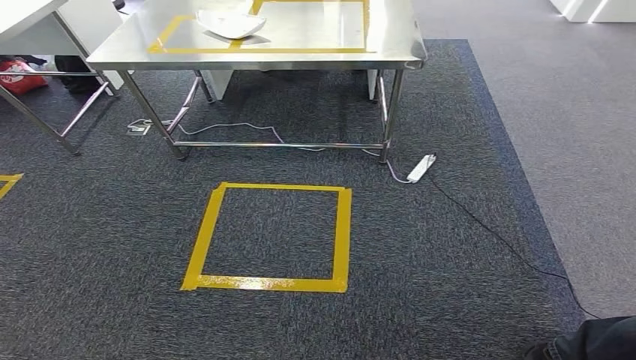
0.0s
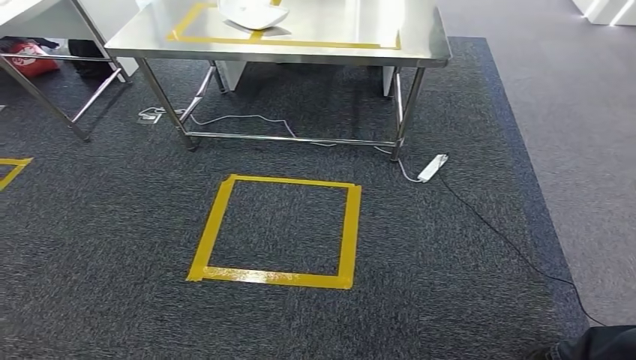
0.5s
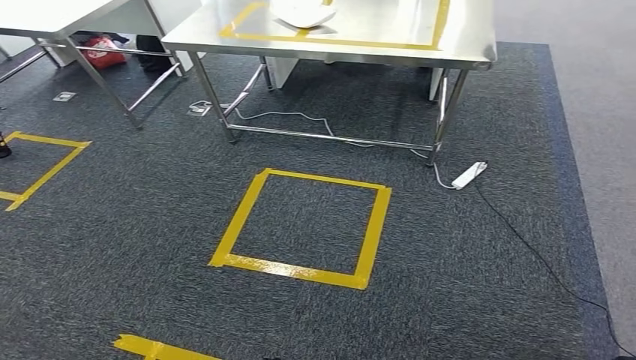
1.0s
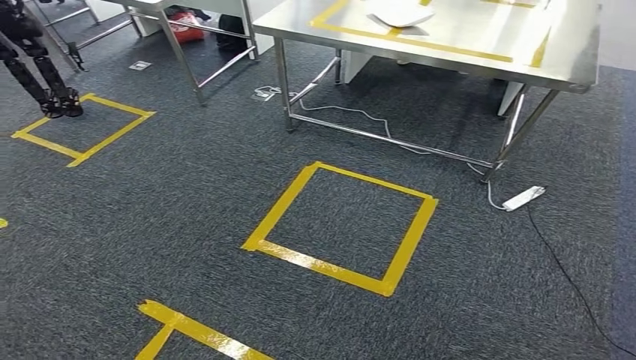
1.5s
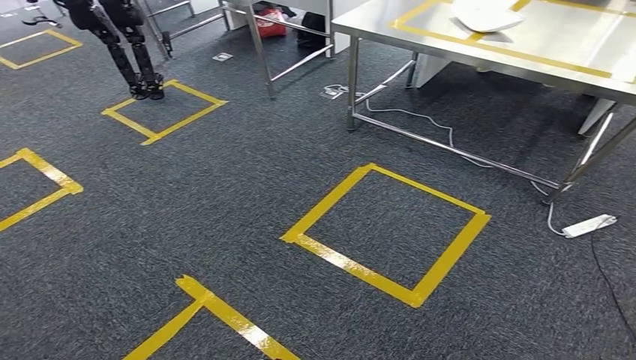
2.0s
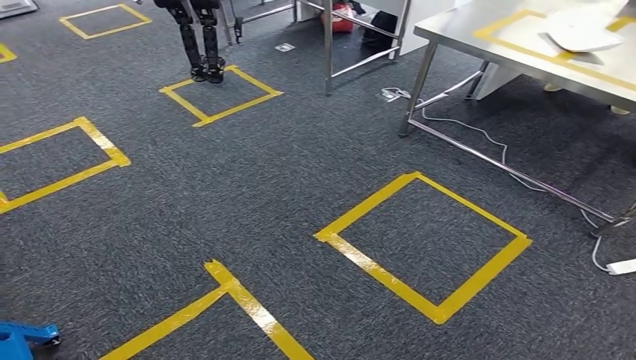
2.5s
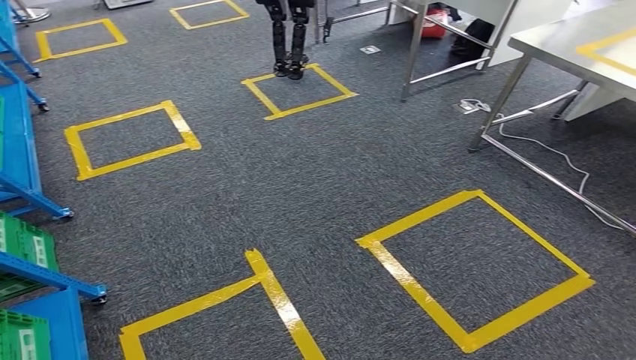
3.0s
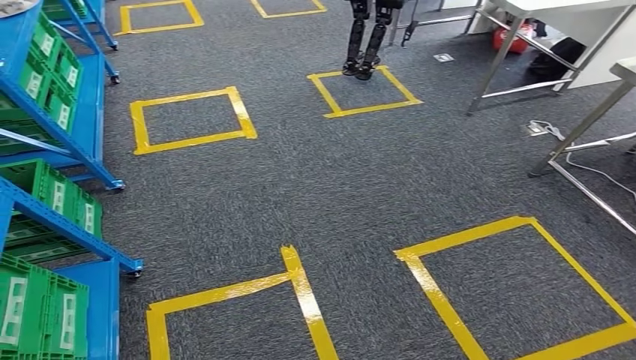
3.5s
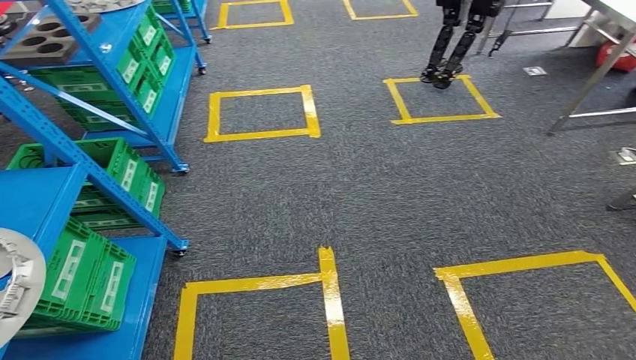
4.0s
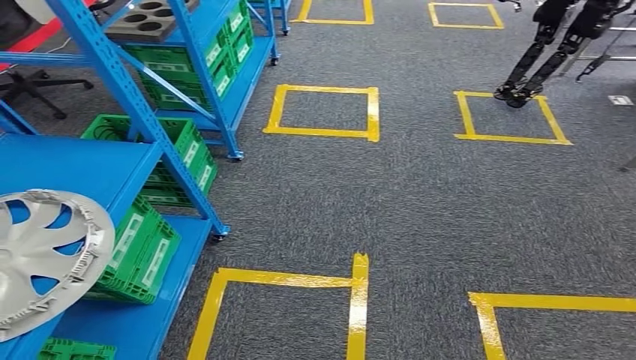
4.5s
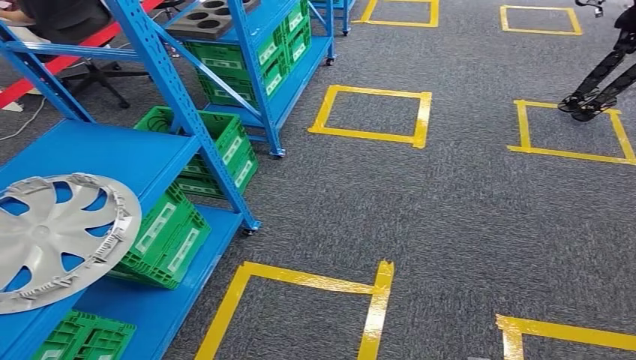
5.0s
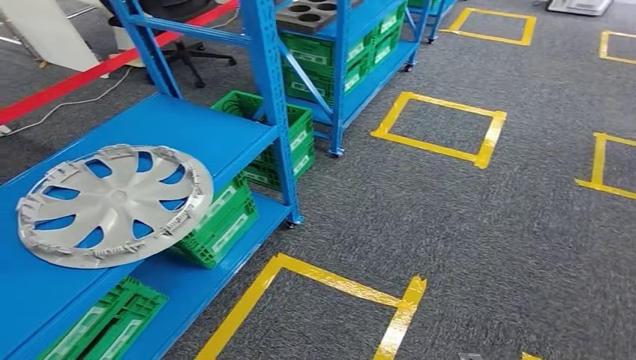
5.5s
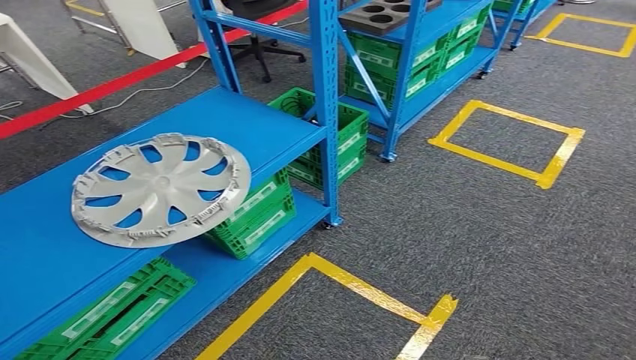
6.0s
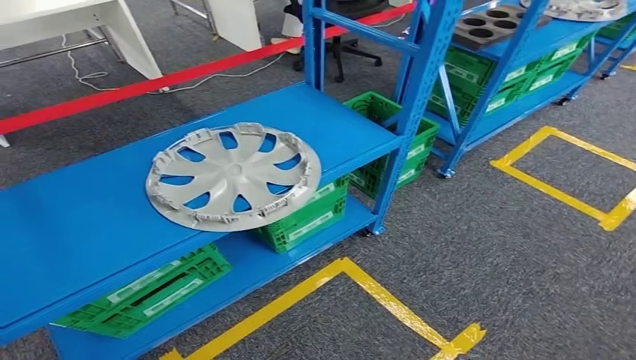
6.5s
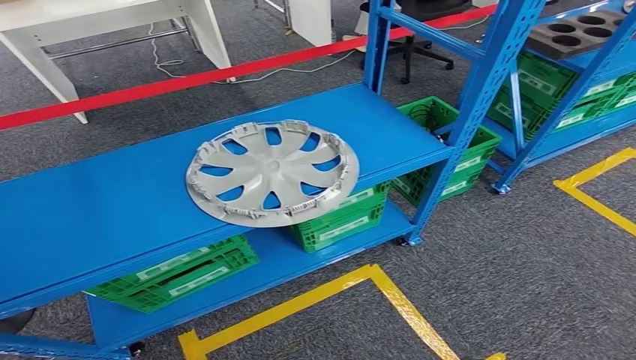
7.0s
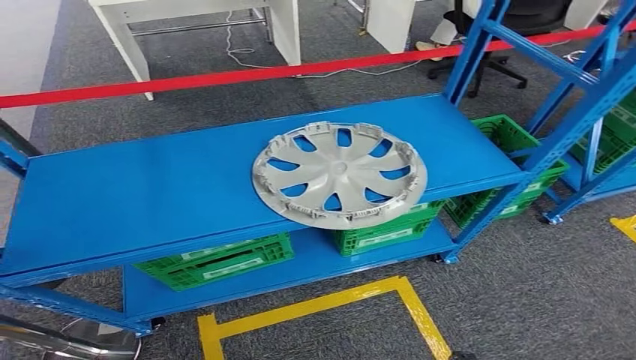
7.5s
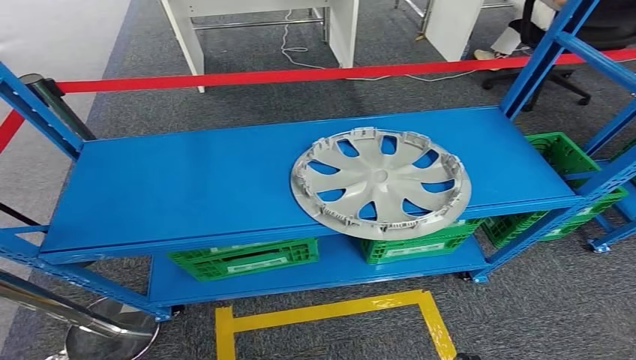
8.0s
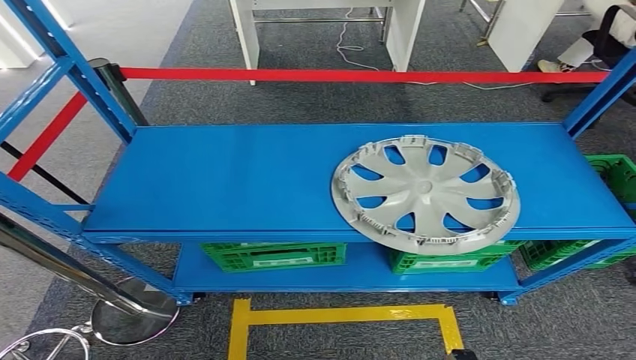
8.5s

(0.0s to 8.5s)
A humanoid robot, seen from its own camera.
Step, 0.0s - 8.5s: Move to the initial position at the workbench.

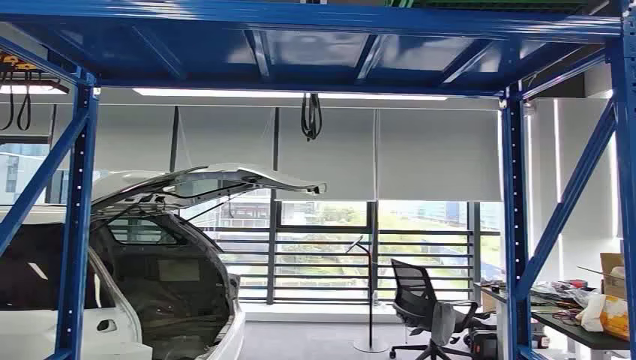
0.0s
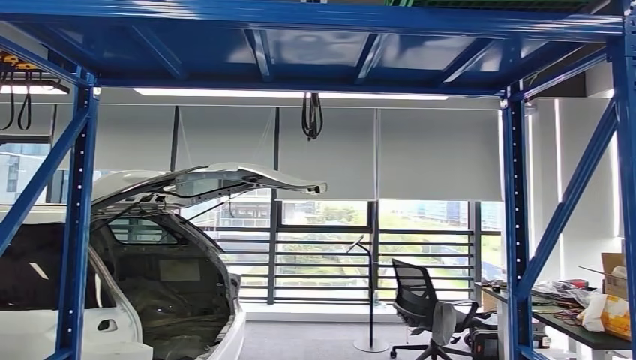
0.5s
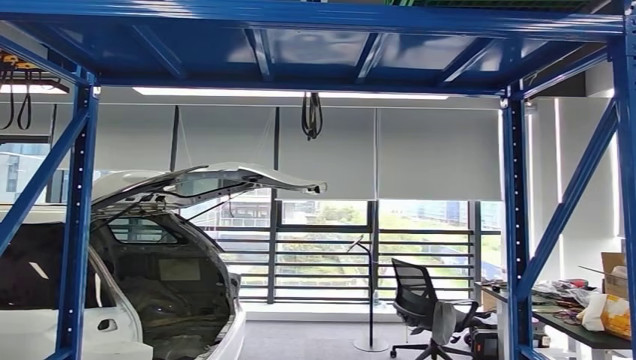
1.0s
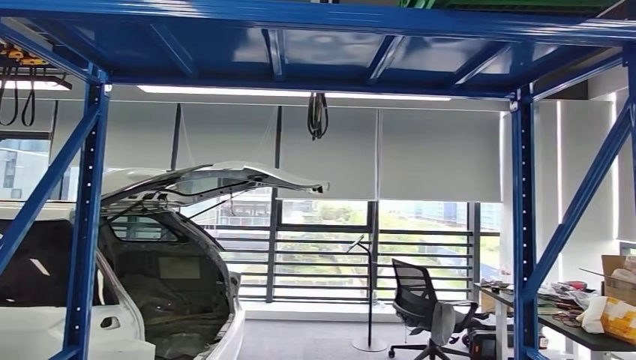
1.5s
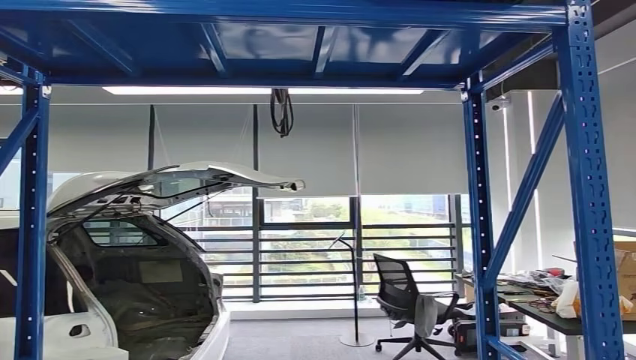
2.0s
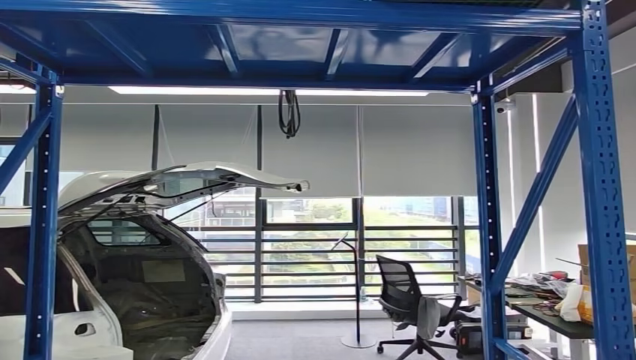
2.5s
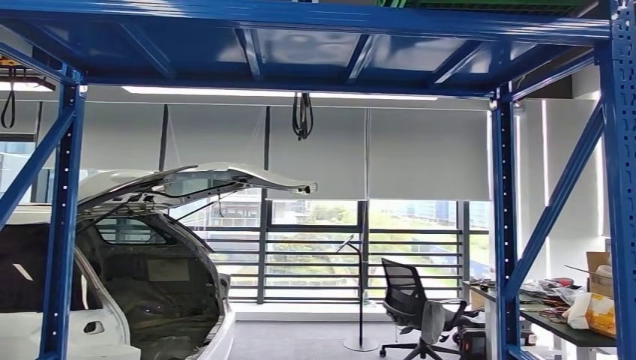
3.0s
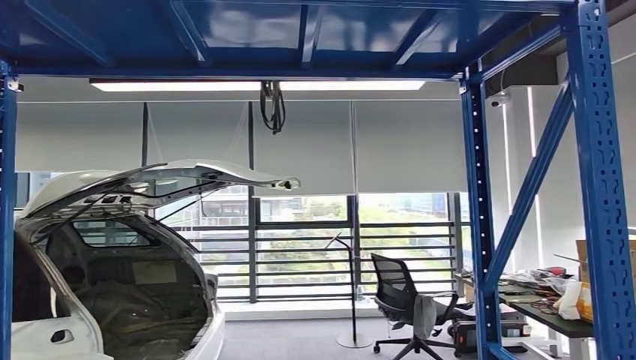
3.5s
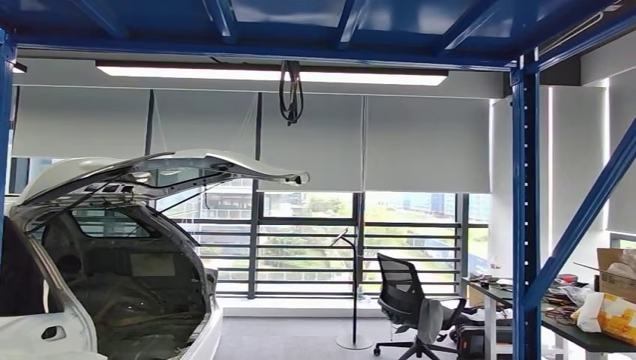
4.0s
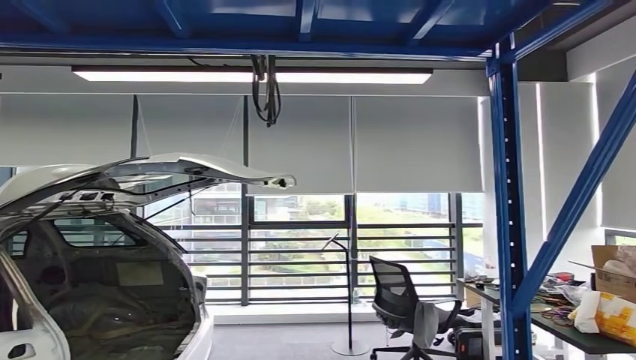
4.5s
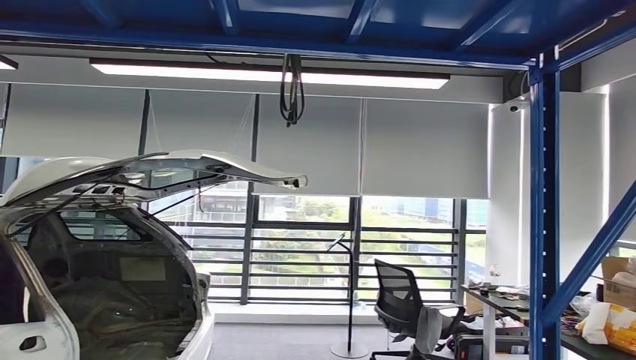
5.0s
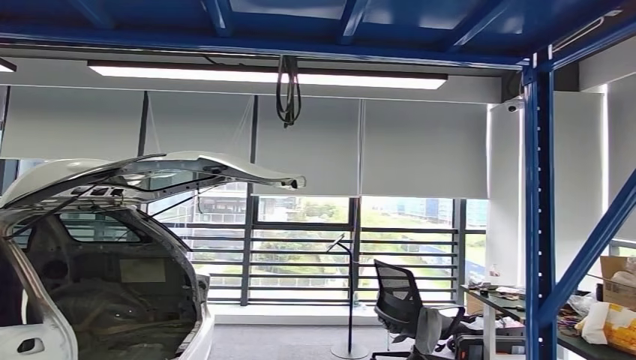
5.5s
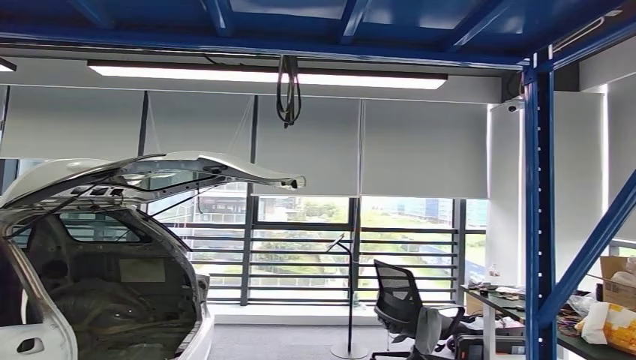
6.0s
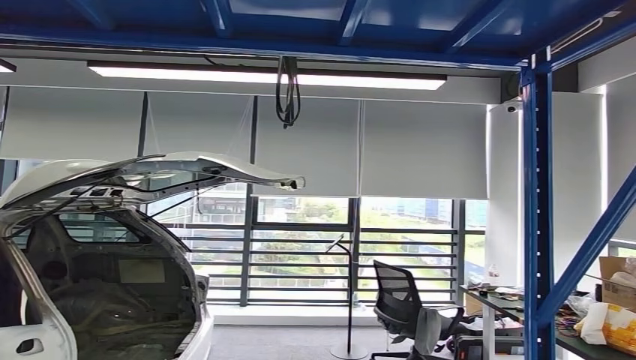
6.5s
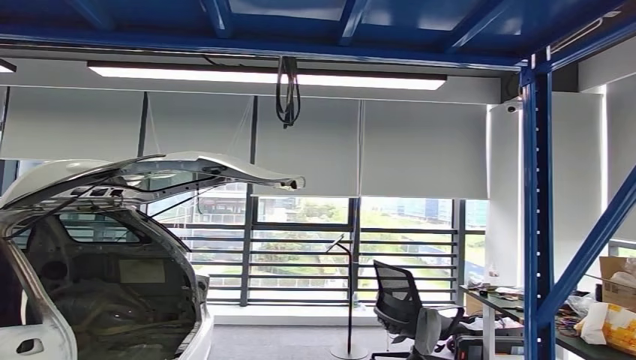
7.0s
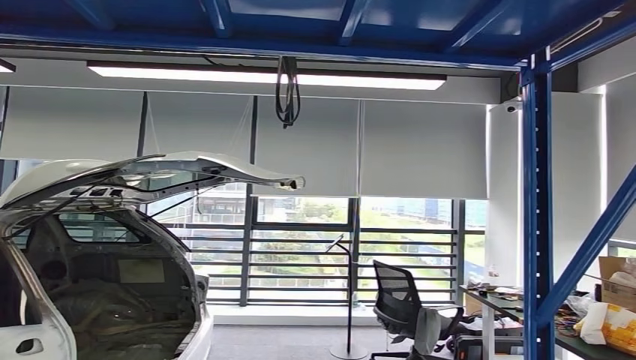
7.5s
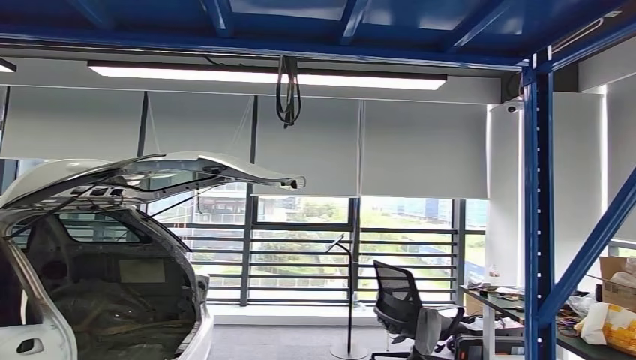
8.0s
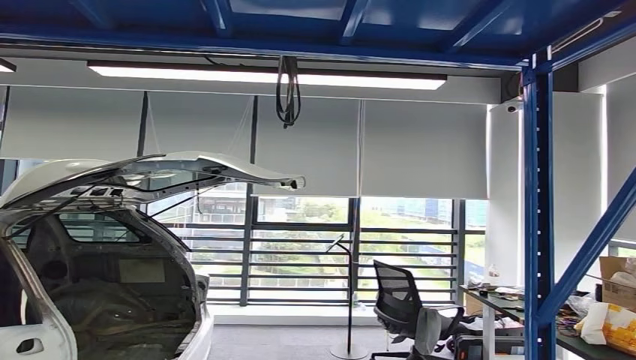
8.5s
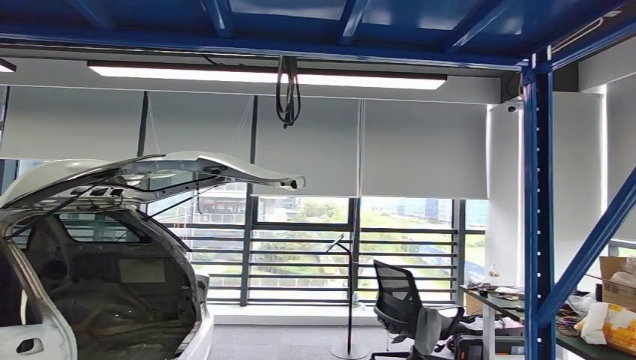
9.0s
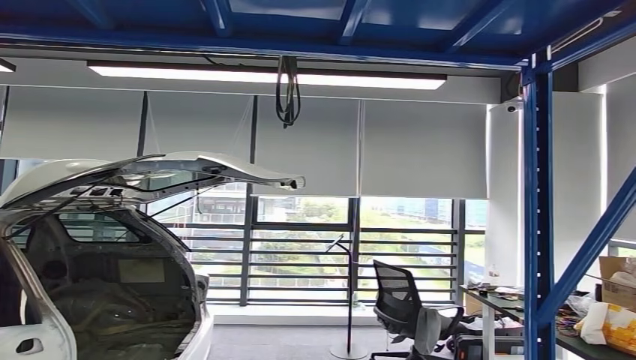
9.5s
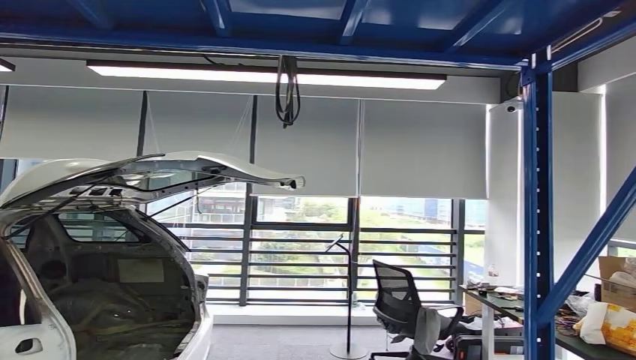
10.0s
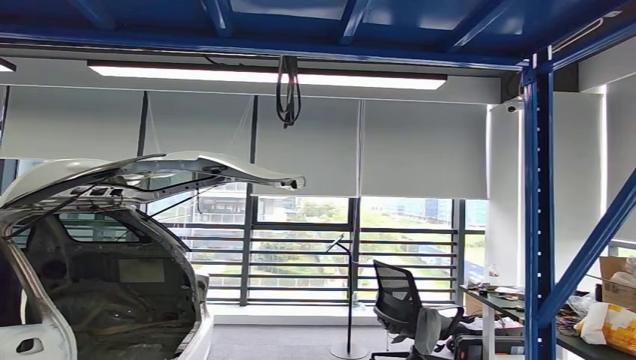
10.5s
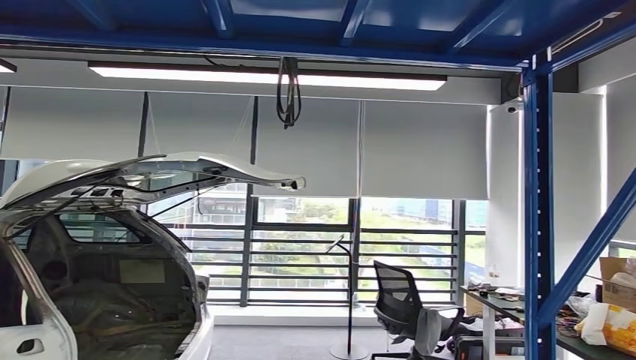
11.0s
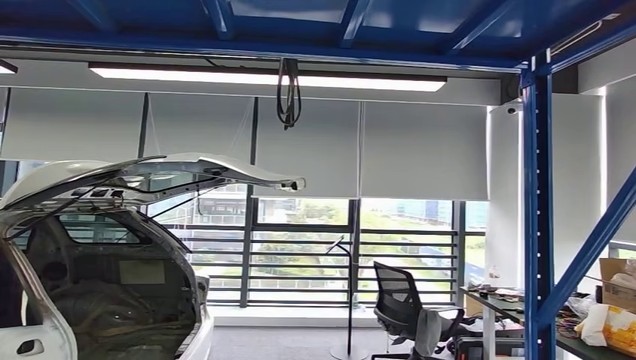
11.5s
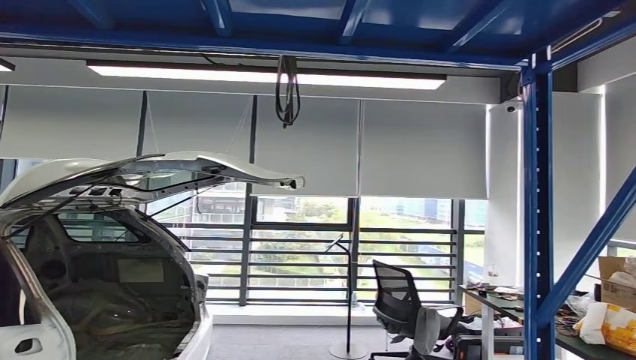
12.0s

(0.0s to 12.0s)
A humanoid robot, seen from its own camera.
6.0s - 8.0s: The right hand shifts approximately 10 cm to the left.
8.0s - 10.0s: The right hand goes approximately 10 cm forward and to the left.
